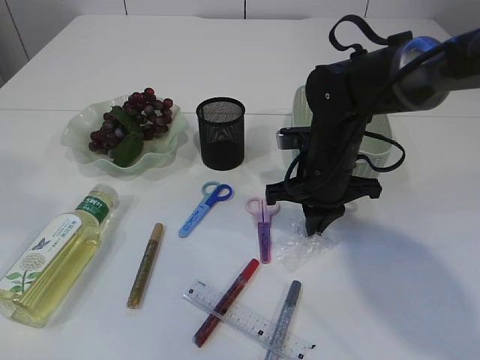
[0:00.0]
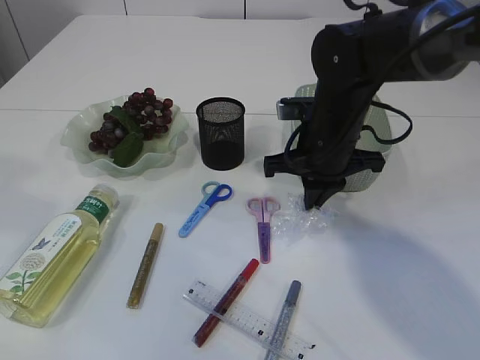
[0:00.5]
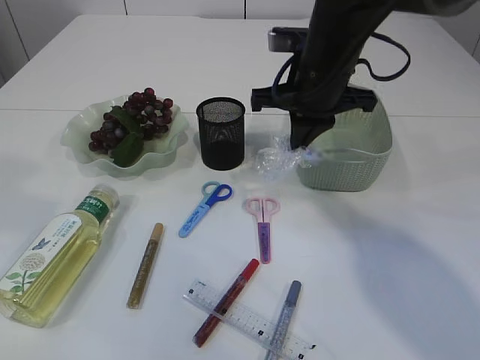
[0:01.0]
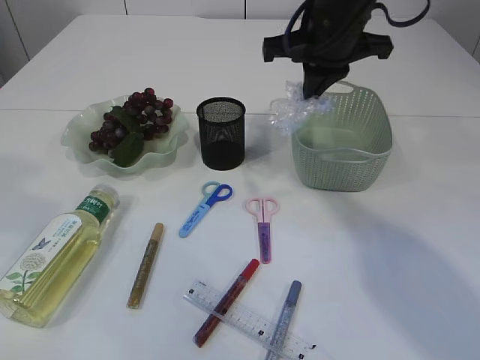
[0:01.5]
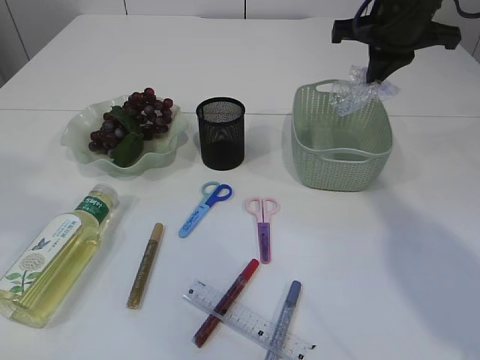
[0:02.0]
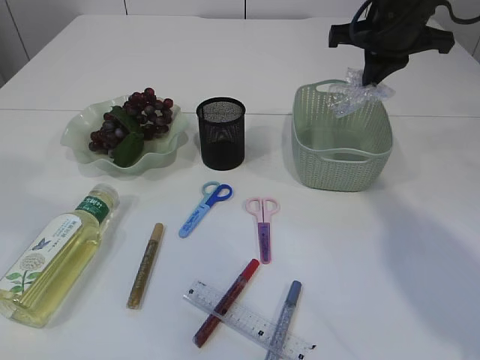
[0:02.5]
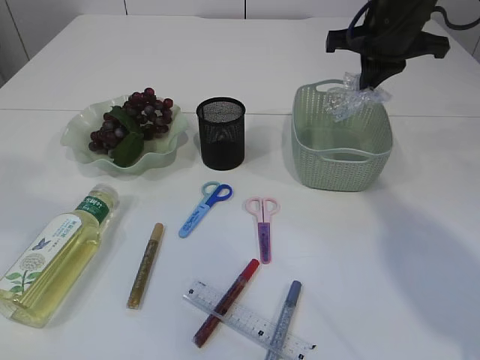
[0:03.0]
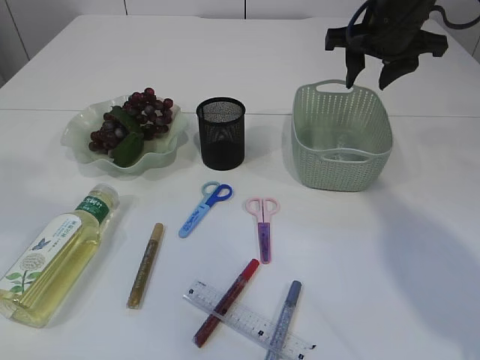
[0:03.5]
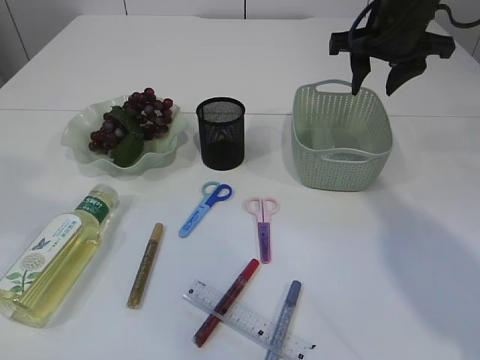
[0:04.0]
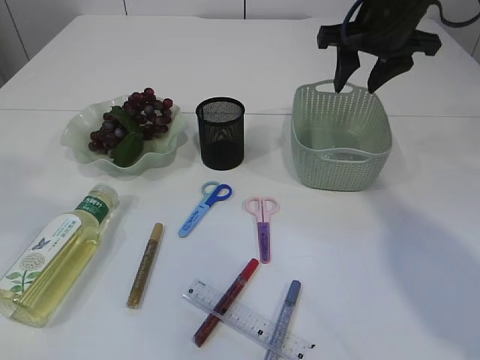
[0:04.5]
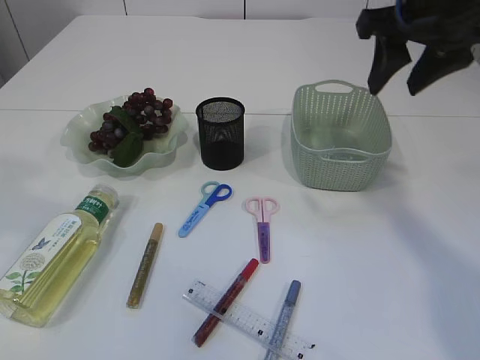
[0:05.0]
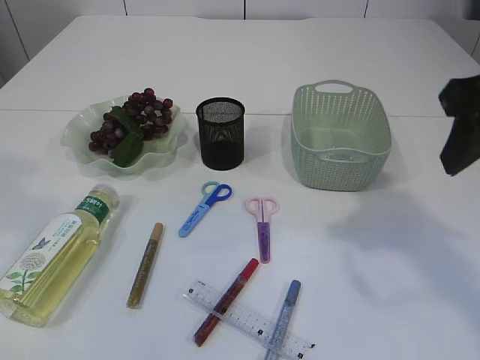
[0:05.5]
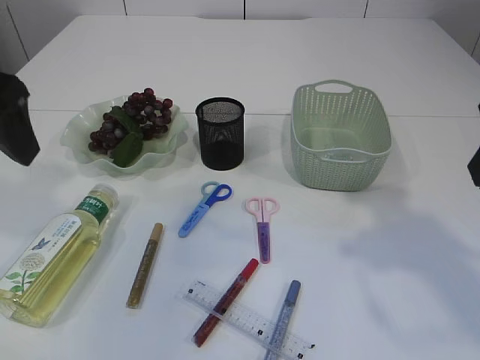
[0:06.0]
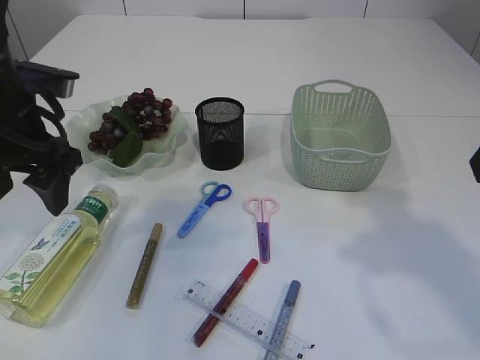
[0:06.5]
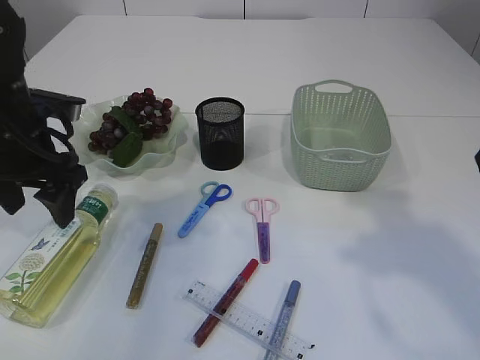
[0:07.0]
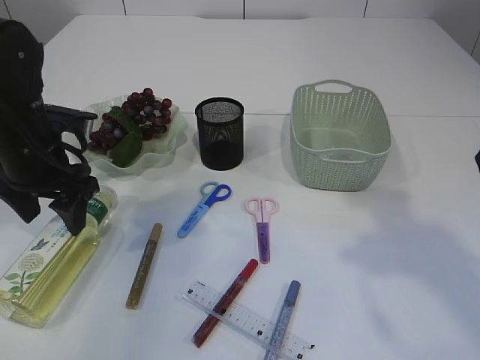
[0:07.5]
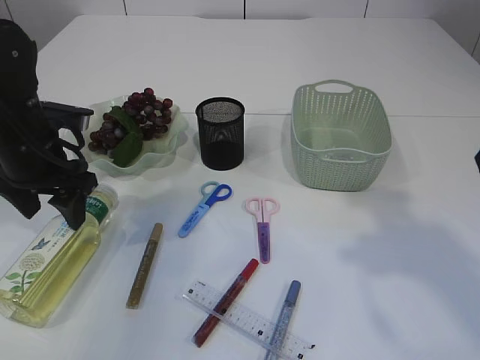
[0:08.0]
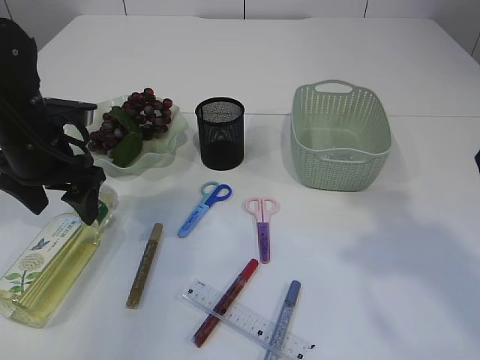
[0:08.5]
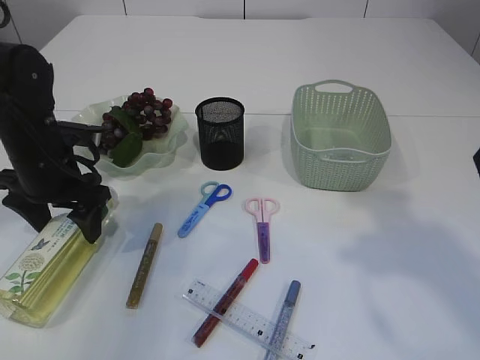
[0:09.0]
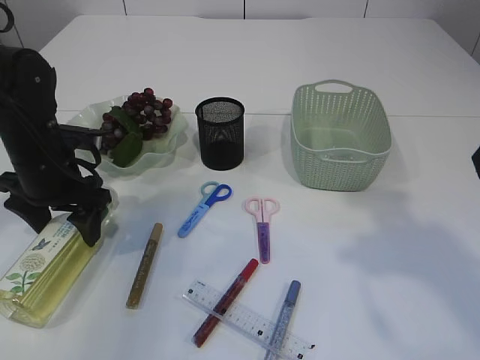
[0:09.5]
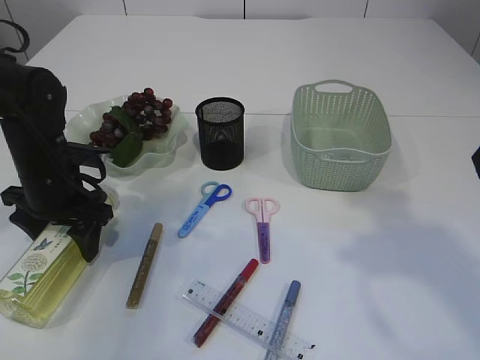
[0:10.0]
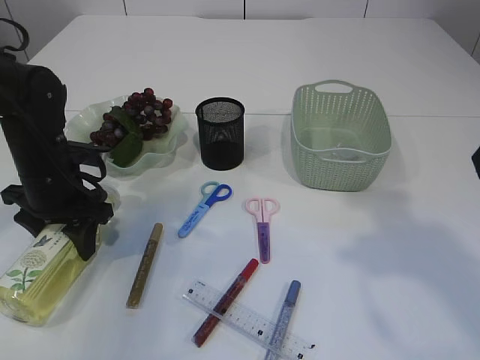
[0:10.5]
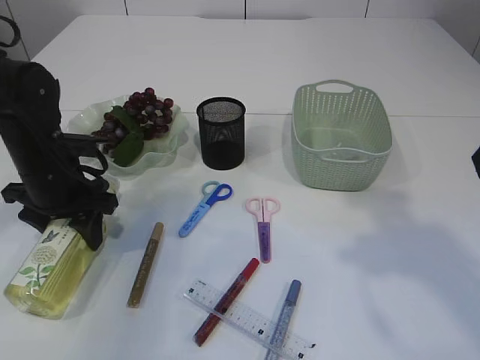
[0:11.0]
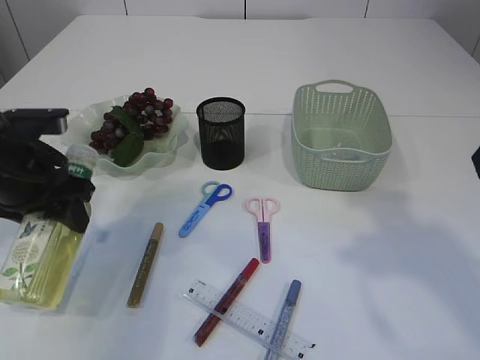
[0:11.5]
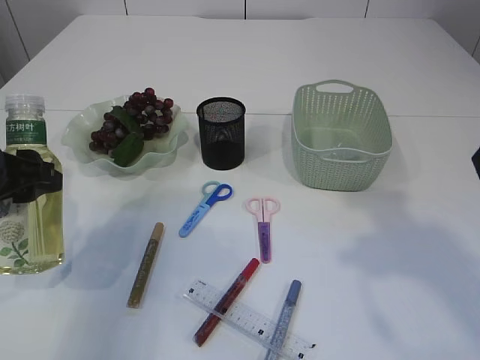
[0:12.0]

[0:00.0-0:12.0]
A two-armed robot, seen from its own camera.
Step, 1.0 to 4.0 s: Place the plastic in the basket.
Step, 4.5 to 11.5 s: Pick up the bottle with the left arm.
0.0 to 2.0 s: The right gripper moves upward, to the right and forward, roughly 20 cm.
2.0 to 4.0 s: The right gripper opens up.
4.0 to 6.0 s: The right gripper moves backward, roughly 25 cm. The left gripper goes about 10 cm downward, and opens up.
6.0 to 8.0 s: The left gripper heads downward and forward, covering roughly 20 cm.
8.0 to 10.0 s: The left gripper goes about 5 cm downward.
10.0 to 12.0 s: The left gripper goes approximately 10 cm backward and upward.

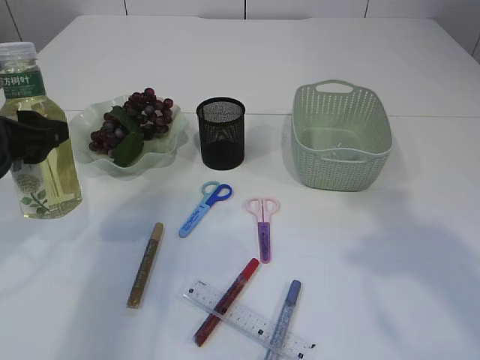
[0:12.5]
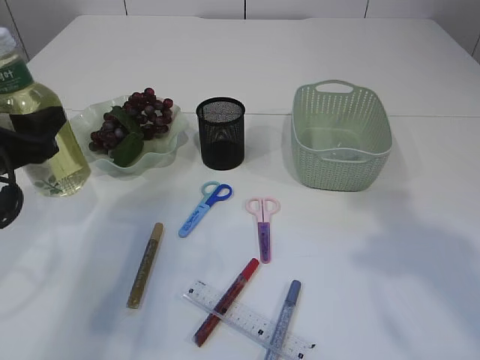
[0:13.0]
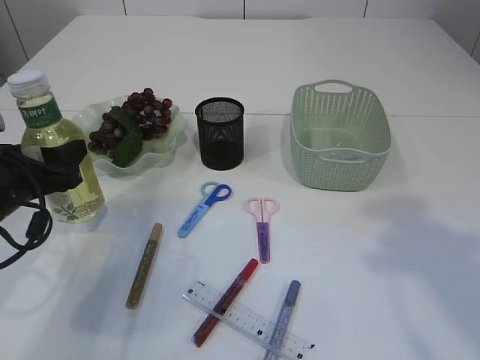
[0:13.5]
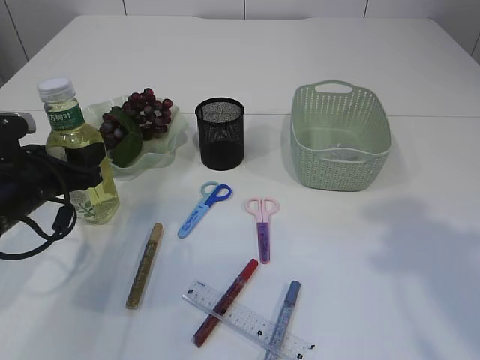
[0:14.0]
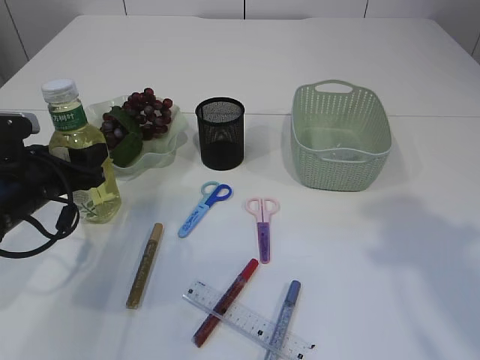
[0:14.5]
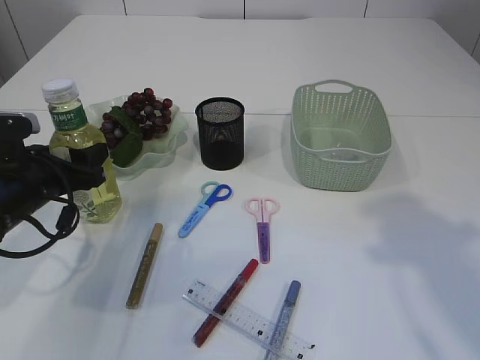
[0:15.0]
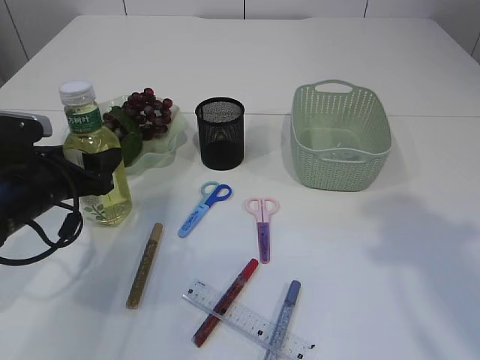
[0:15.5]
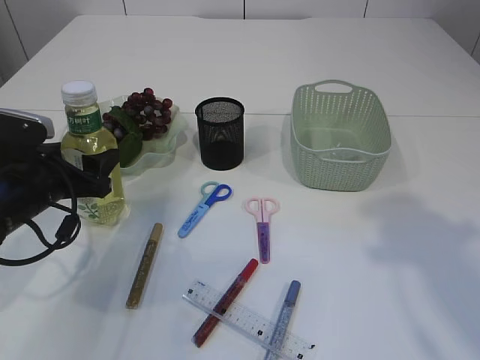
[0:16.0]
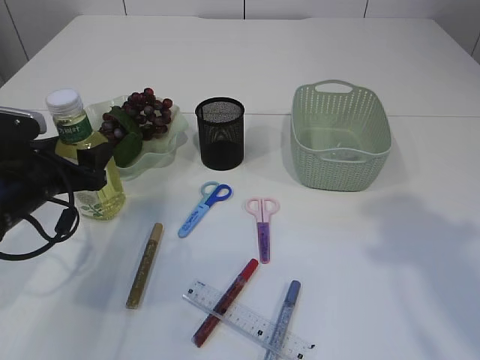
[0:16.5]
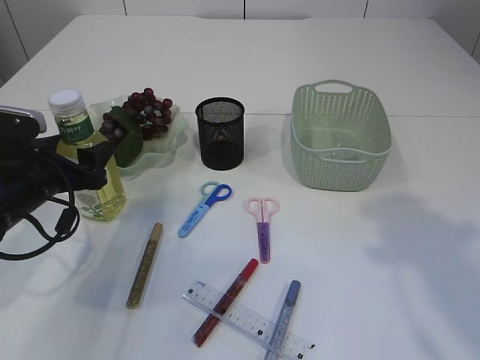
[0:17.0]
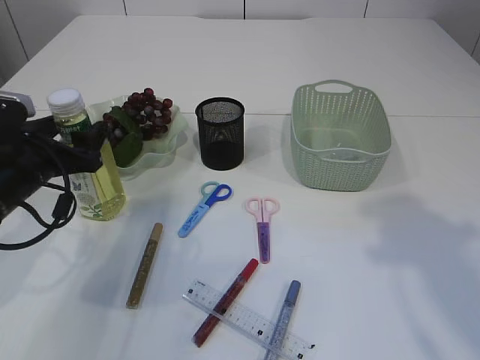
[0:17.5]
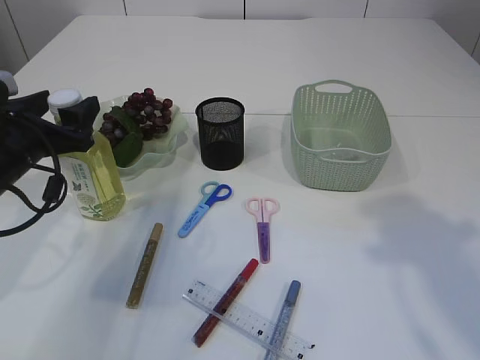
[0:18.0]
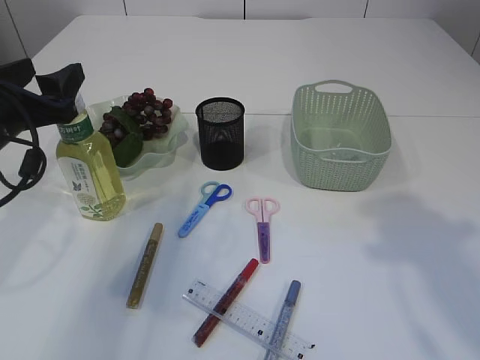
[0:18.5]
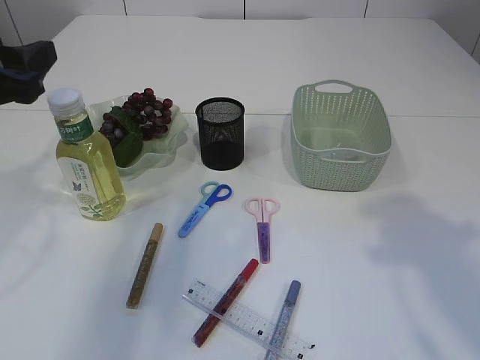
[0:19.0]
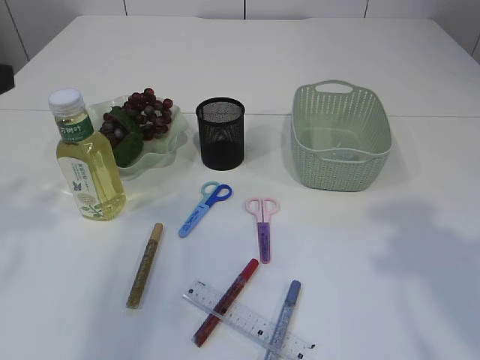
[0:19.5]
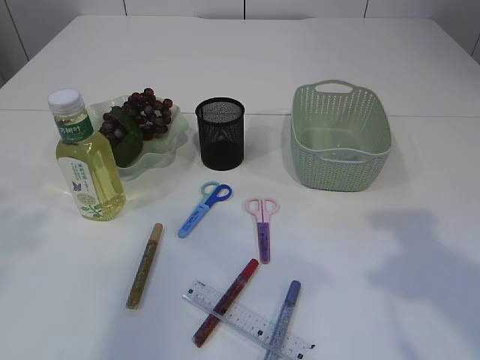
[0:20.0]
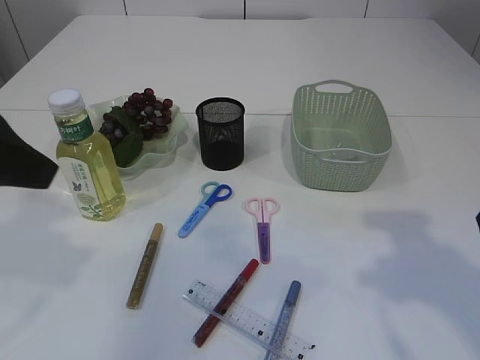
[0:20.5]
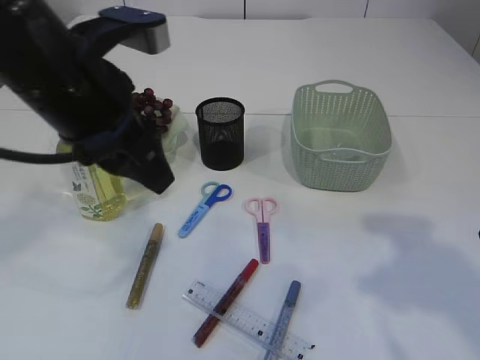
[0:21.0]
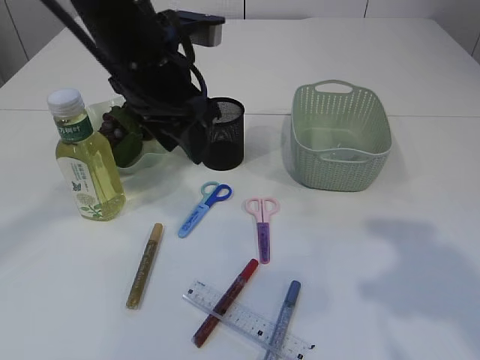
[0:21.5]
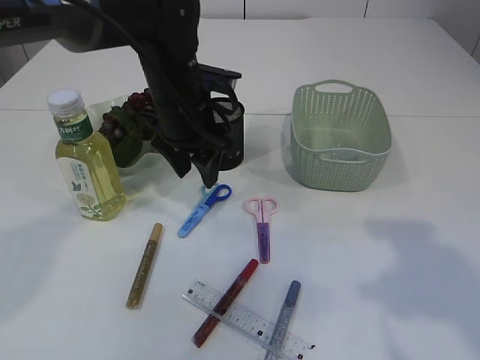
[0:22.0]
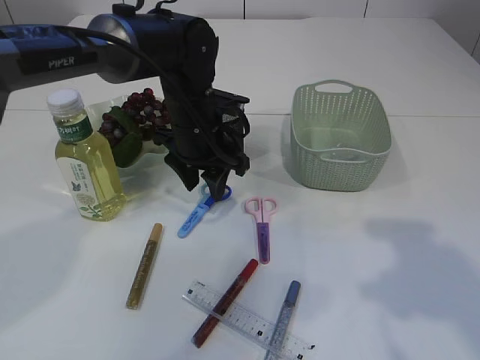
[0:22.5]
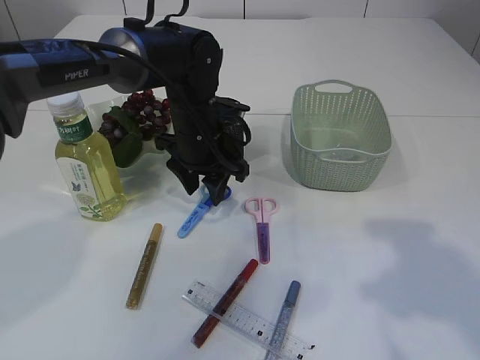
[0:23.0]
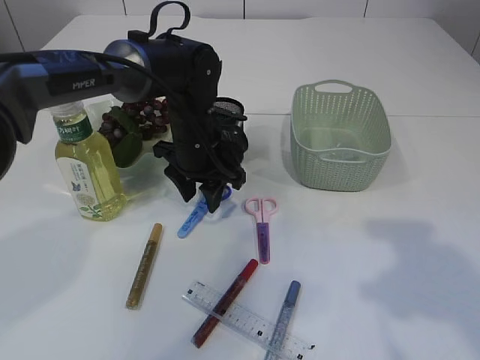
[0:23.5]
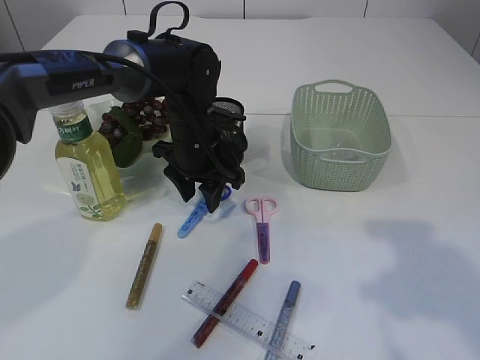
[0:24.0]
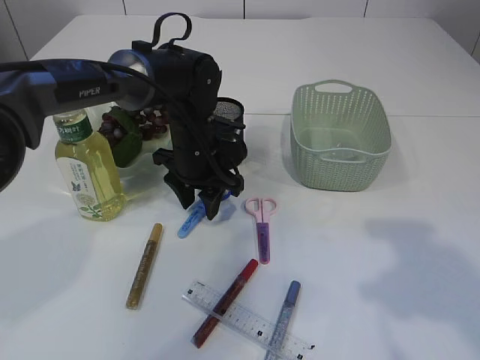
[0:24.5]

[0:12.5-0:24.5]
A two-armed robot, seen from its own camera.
Step, 12.5 to 18.5 s: Place the bottle.
12.5 to 14.5 s: The left gripper goes about 10 cm downward.
14.5 to 16.5 s: There are only small adjustments of the grippers.
16.5 to 18.5 s: The left gripper moves upward, about 10 cm.
18.5 to 20.5 s: The left gripper moves upward and backward, about 15 cm.
20.5 to 22.5 s: The left gripper moves forward, to the right and downward, roughly 30 cm.
22.5 to 24.5 s: The grippers move only a little.

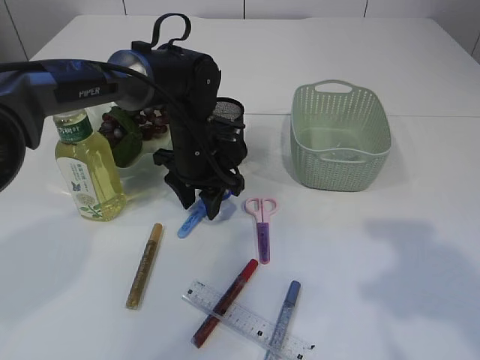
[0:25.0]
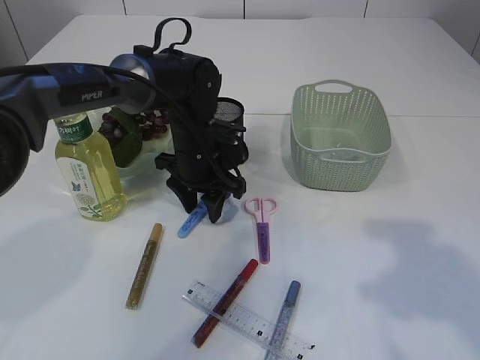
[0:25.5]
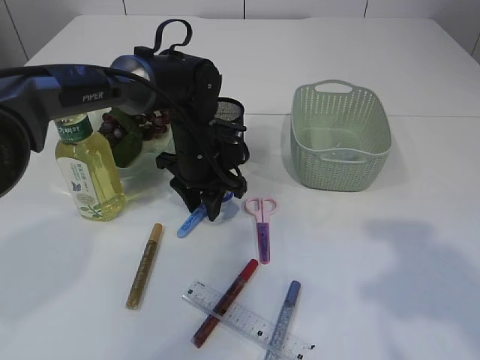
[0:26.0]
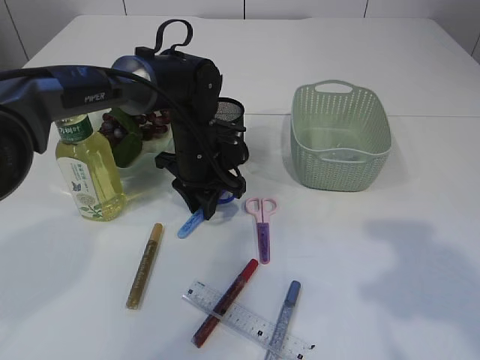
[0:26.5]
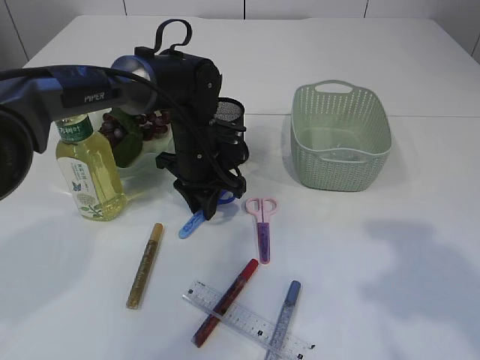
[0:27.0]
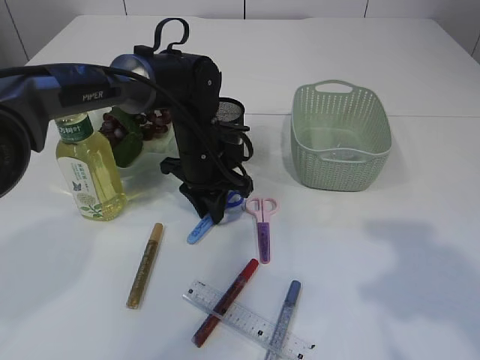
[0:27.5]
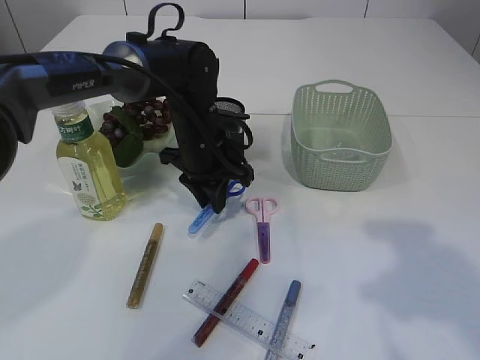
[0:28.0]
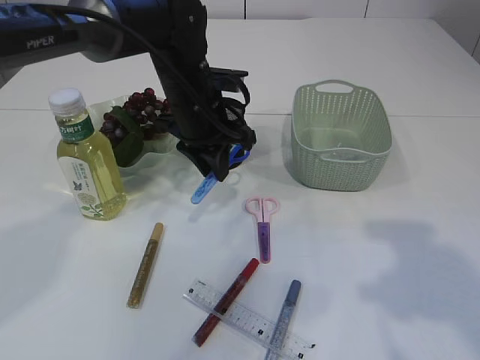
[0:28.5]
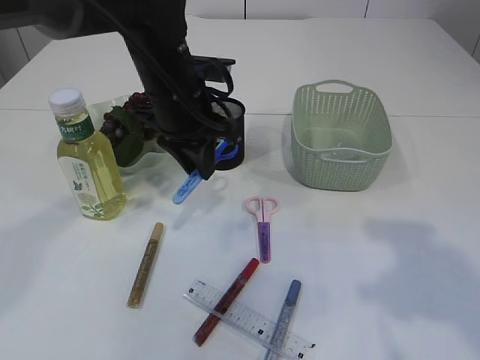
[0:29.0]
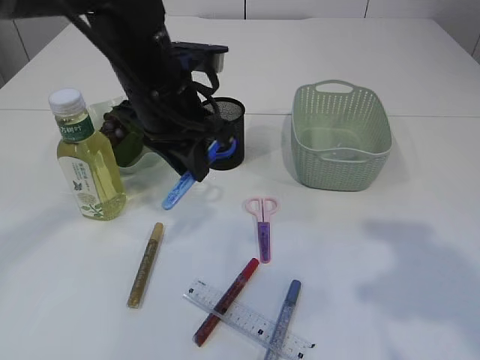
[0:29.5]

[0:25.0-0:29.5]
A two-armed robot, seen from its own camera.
Step, 25.0 to 28.0 s: pick up the blue scissors.
25.0 to 27.0 s: The left gripper closes.
27.0 to 29.5 s: The left gripper travels upward and backward by about 15 cm.
